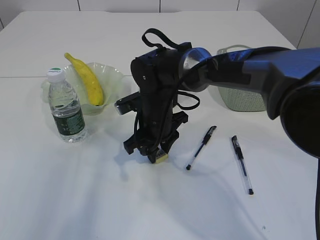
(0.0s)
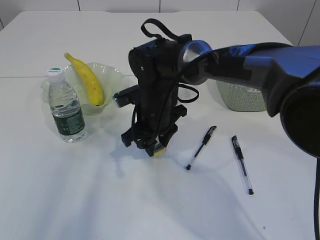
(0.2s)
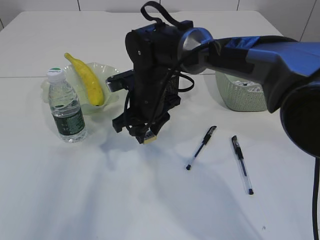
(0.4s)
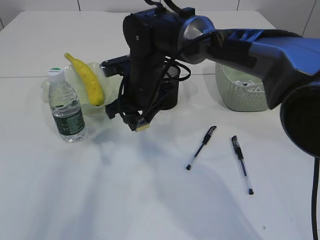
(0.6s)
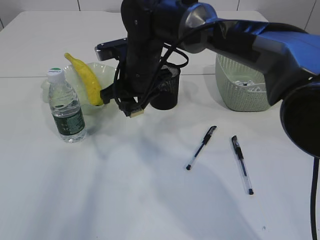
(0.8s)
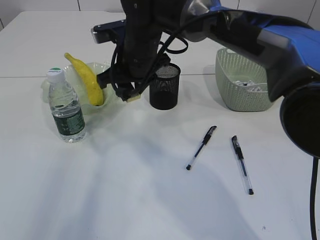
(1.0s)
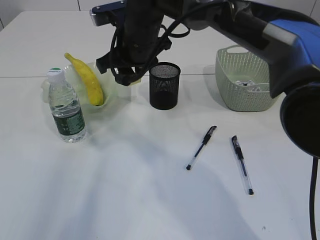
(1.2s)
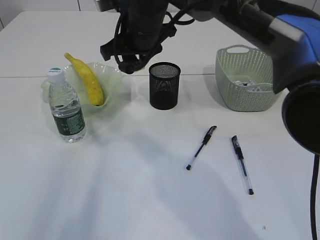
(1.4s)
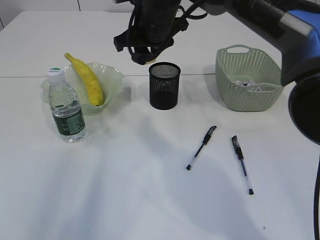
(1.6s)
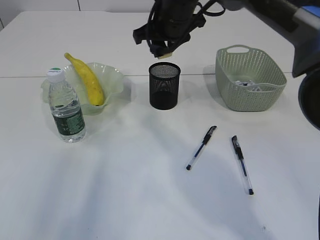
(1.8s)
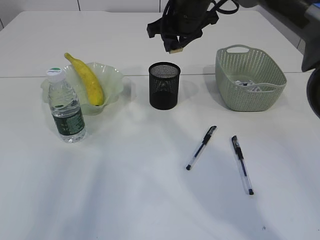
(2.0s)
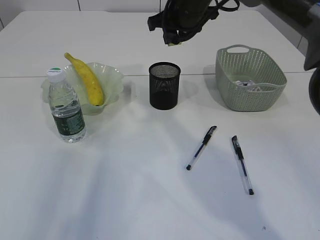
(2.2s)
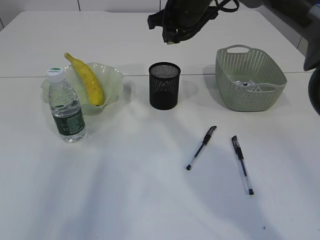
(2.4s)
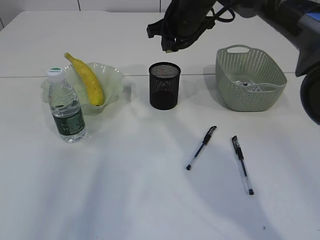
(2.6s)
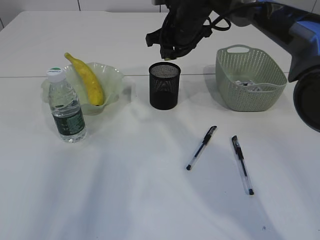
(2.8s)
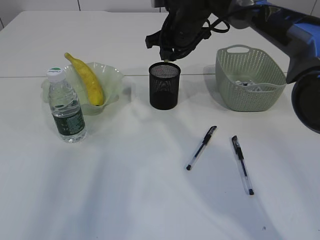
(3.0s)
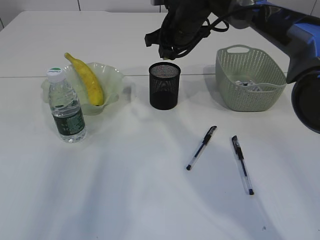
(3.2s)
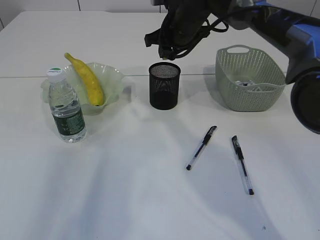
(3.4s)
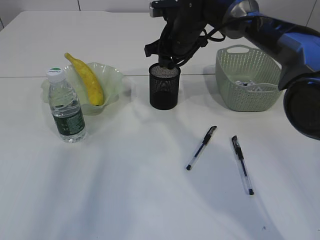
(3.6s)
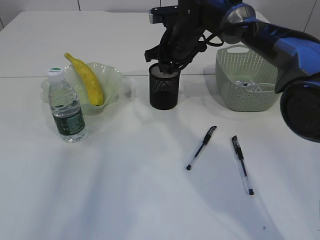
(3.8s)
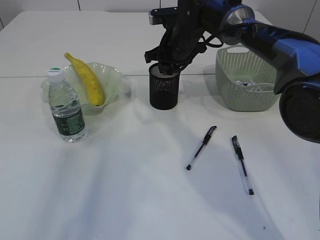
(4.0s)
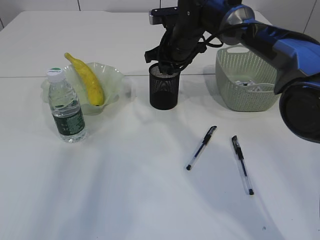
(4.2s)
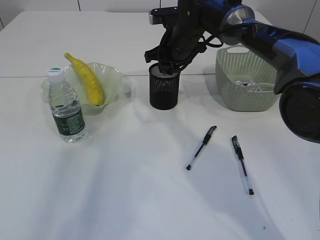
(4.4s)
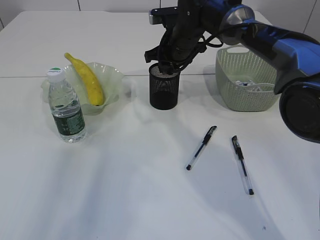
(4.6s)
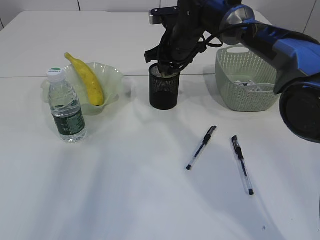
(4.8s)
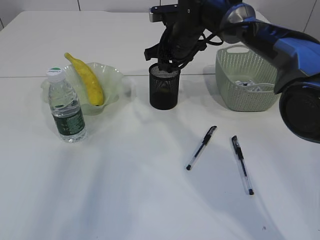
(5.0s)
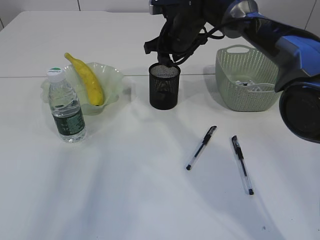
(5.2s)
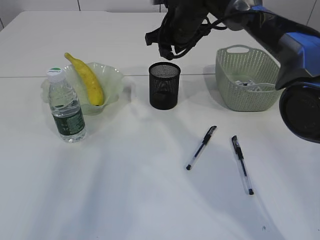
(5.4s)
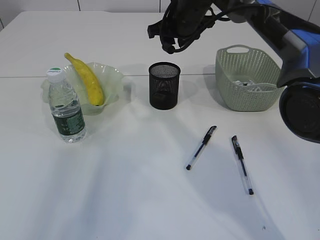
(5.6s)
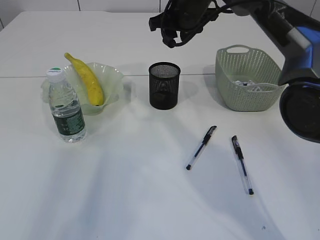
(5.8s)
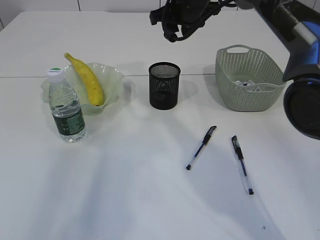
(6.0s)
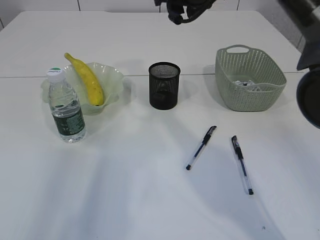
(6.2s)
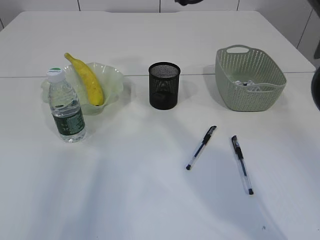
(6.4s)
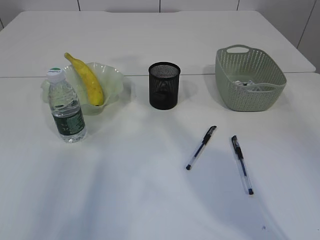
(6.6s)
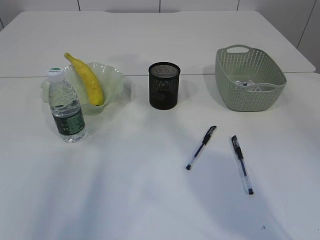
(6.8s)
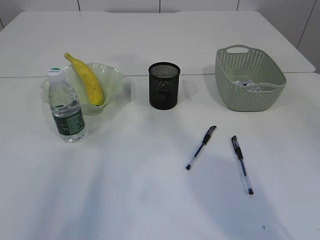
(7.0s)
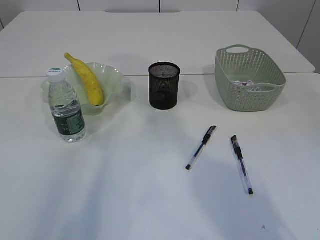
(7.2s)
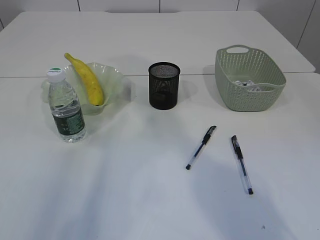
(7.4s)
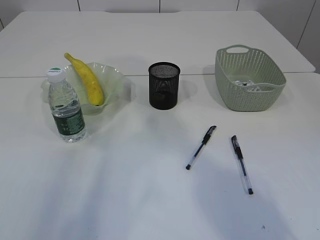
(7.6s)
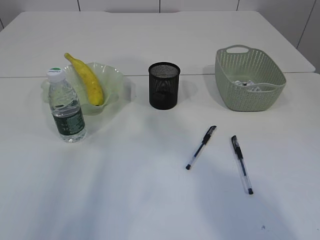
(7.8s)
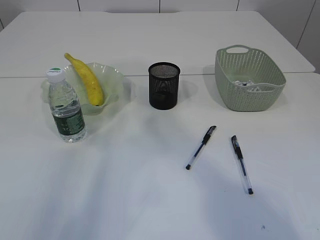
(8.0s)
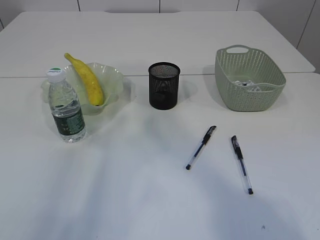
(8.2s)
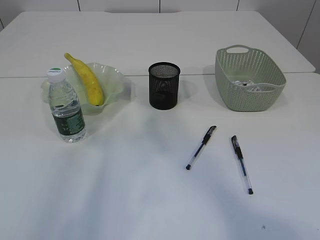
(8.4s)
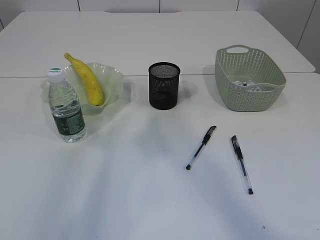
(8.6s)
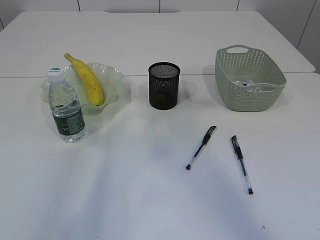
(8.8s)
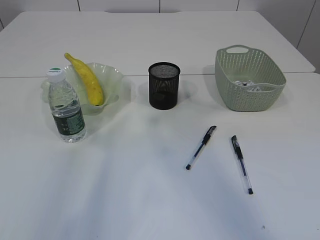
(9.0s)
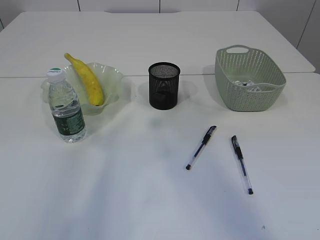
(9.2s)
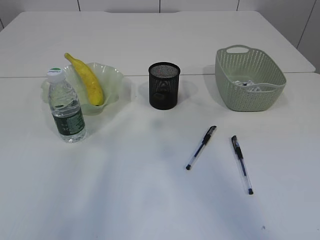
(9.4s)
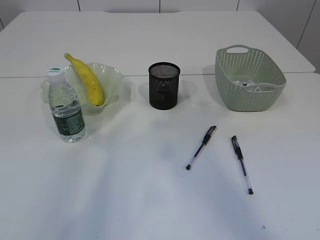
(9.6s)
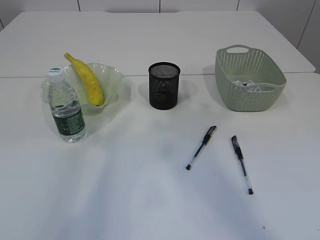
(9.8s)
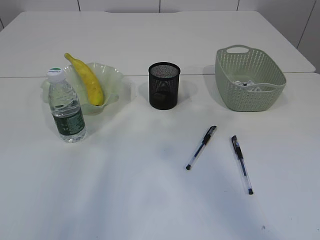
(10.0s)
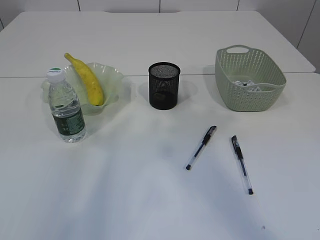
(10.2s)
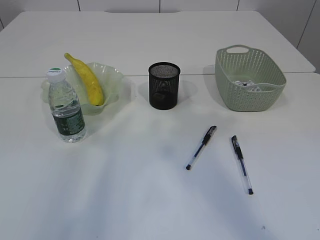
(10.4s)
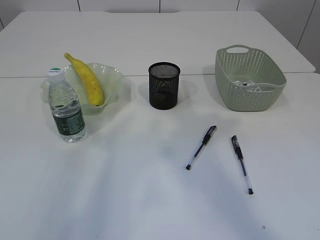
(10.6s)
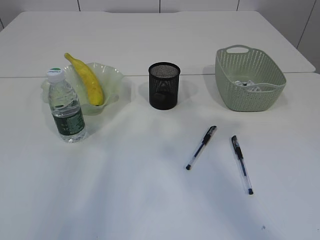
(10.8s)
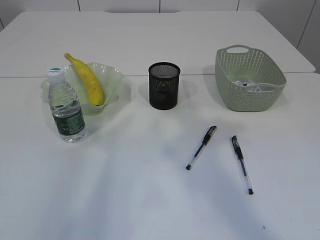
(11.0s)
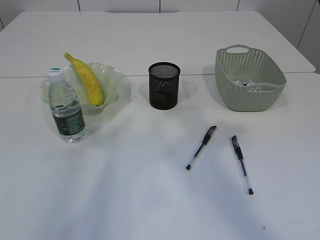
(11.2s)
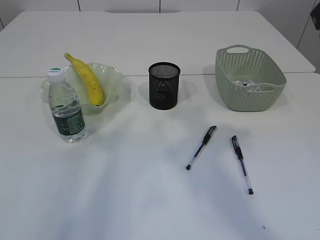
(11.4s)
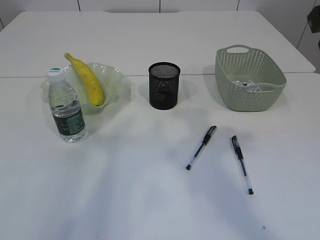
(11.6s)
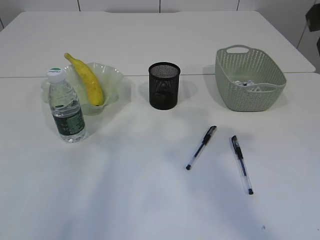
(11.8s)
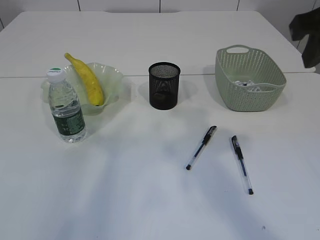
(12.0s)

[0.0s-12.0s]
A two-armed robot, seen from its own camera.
Step, 0.6s to 5.4s: Place the eraser into the pen holder.
0.0s to 1.6s: The right gripper shifts approximately 15 cm upward.
1.6s to 3.0s: The right gripper heads to the right and forward, covering some 10 cm.
3.0s to 4.4s: The grippers make only small movements.
4.4s to 6.0s: The right gripper travels upward by some 10 cm.
6.0s to 7.6s: The right gripper heads upward and backward, covering some 30 cm.
10.4s to 12.0s: The right gripper moves downward, about 10 cm.

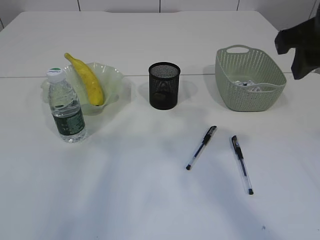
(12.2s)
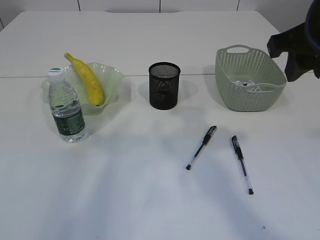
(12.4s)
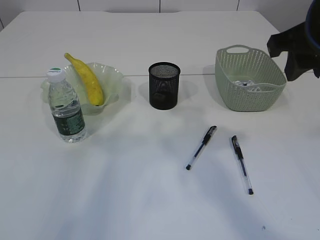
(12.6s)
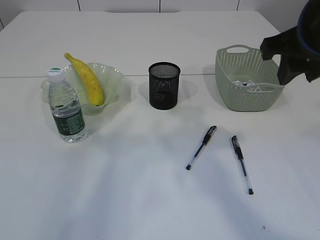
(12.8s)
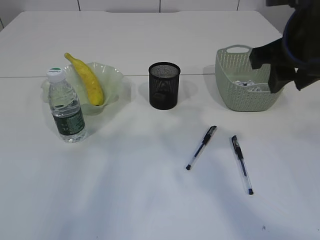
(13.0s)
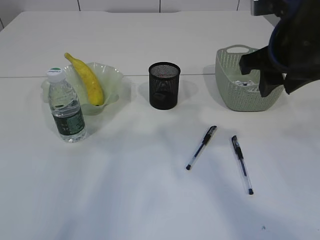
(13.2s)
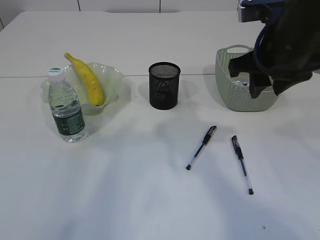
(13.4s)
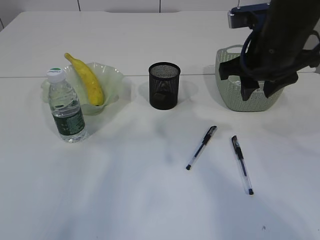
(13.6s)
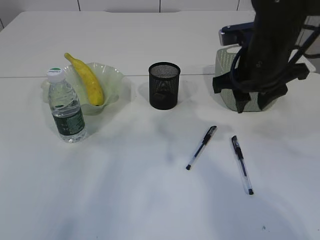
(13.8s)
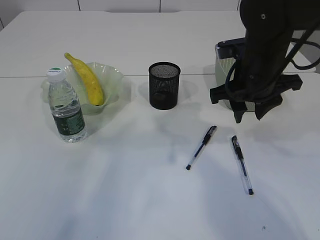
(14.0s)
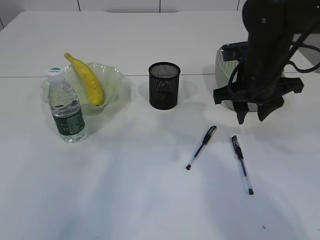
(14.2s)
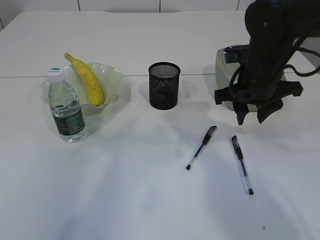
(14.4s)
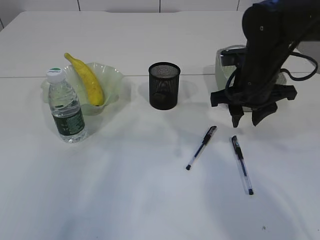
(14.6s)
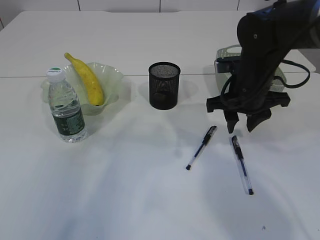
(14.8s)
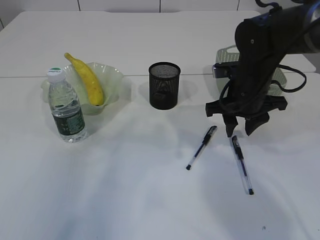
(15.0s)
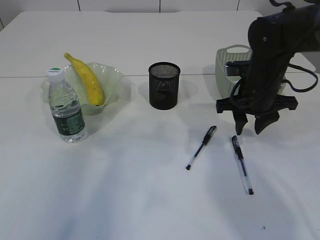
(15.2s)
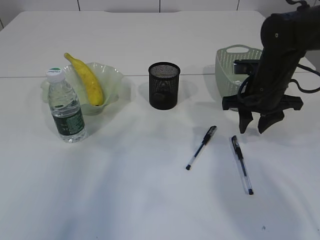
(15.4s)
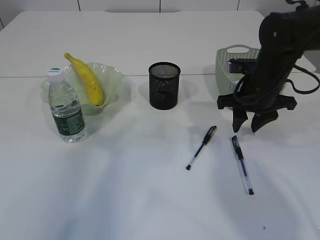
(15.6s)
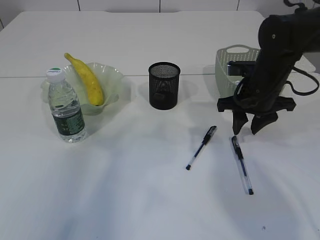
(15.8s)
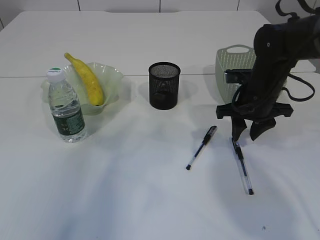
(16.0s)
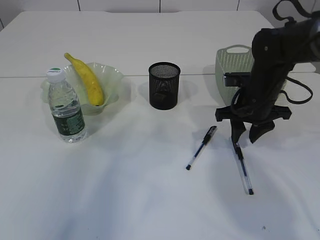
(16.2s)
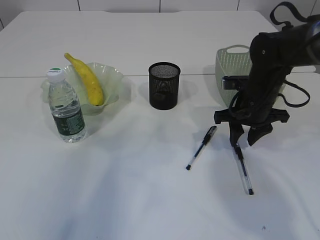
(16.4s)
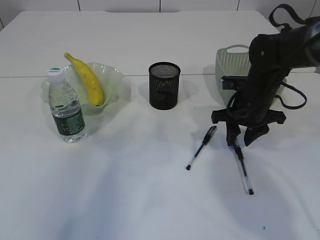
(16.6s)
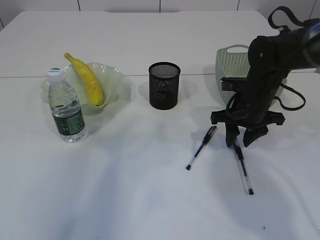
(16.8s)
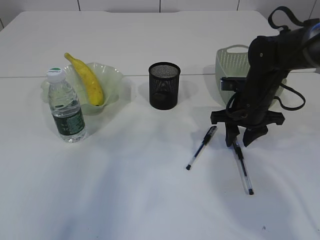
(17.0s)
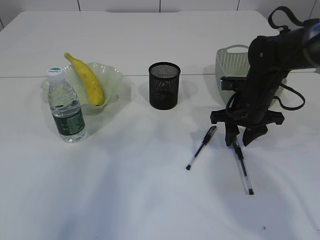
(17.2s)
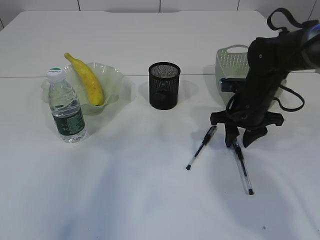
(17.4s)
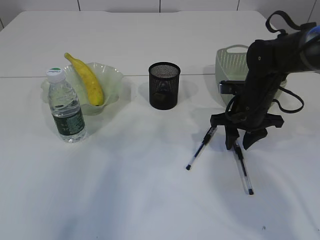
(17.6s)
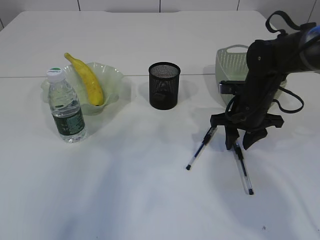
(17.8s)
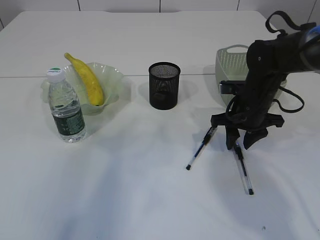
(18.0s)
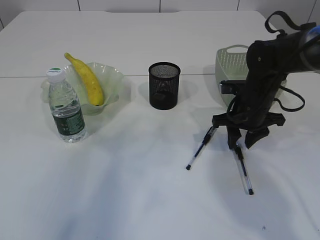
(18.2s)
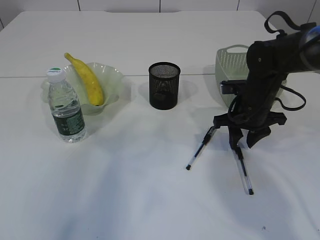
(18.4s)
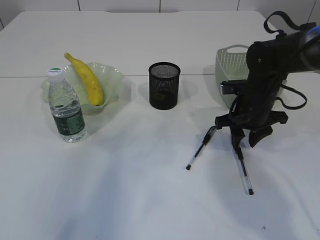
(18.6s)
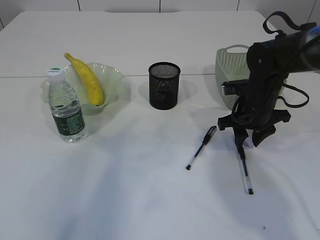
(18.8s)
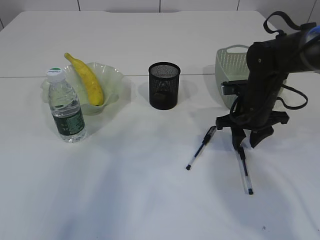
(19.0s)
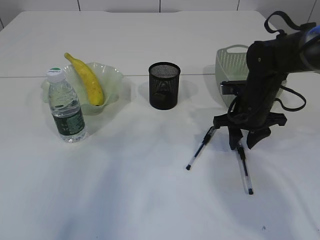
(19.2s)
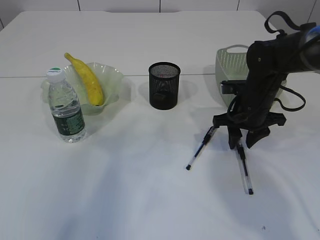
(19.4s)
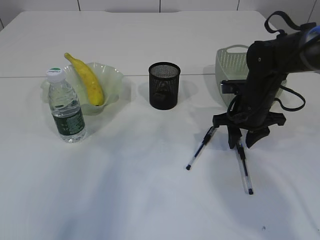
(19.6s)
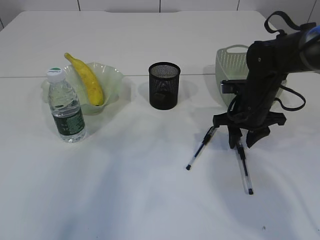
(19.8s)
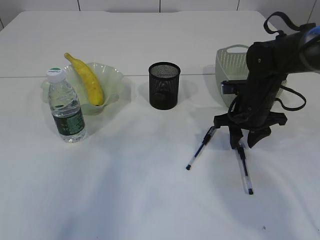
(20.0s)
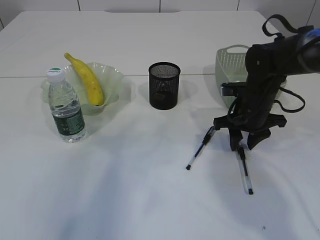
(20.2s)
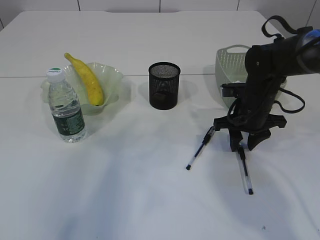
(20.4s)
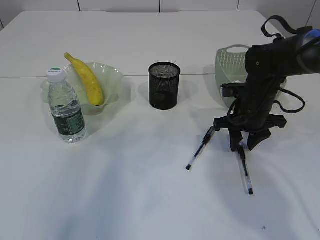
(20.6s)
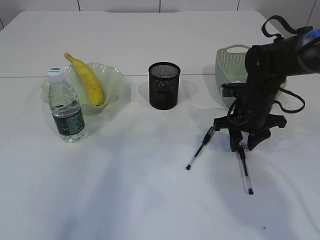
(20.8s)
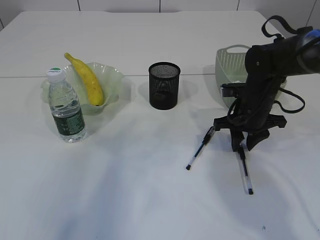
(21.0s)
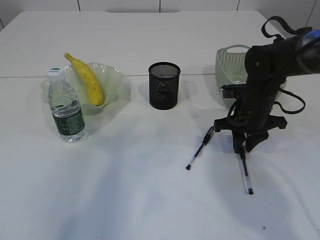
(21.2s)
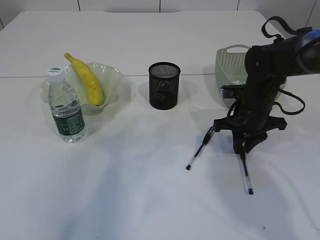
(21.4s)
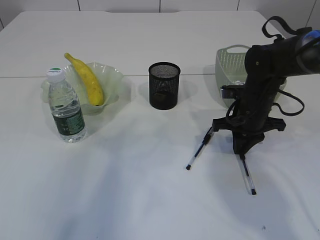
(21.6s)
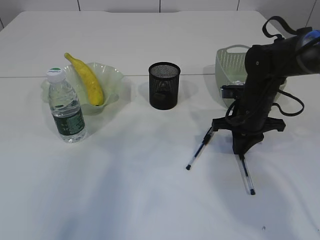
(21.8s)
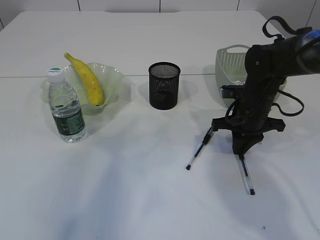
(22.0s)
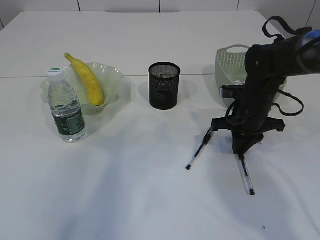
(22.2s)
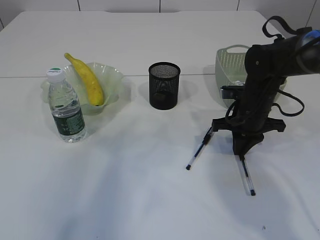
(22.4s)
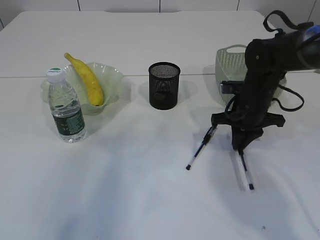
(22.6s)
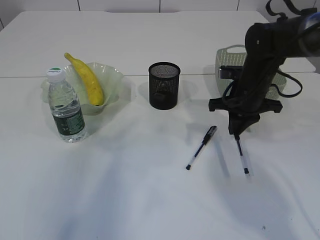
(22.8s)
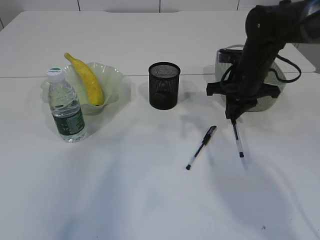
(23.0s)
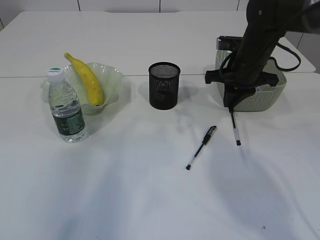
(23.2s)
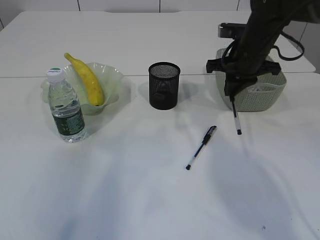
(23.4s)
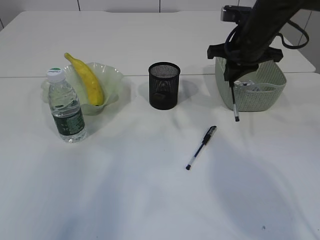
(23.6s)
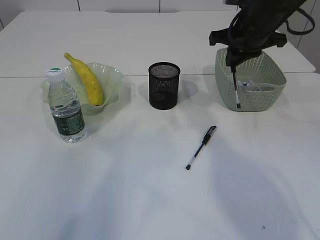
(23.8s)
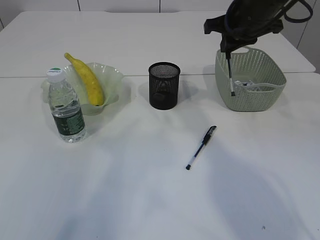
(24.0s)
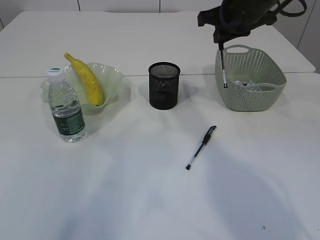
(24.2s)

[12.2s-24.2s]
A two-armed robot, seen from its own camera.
Step, 12.2s to 23.2s: Pick up the pen with right arm.
12.2s to 13.8s: The right gripper heads downward and forward, covering roughly 15 cm.
13.8s to 15.2s: The right gripper moves downward, approximately 10 cm.
15.2s to 16.6s: There are only small adjustments of the grippers.
16.6s to 18.2s: Both grippers stay put.
18.2s to 19.8s: There are only small adjustments of the grippers.
19.8s to 22.6s: Both grippers stay about where they are.
22.6s to 24.2s: The right gripper travels upward by about 15 cm.
